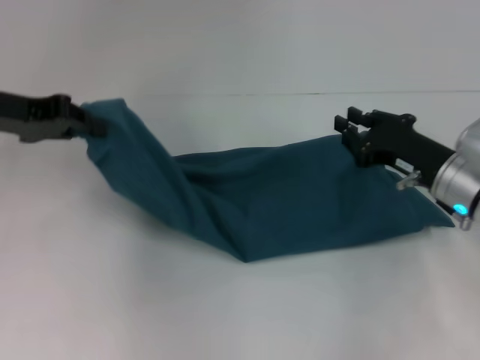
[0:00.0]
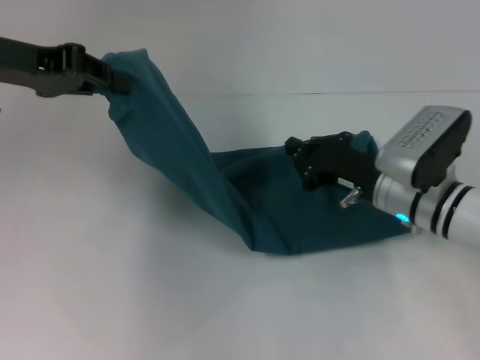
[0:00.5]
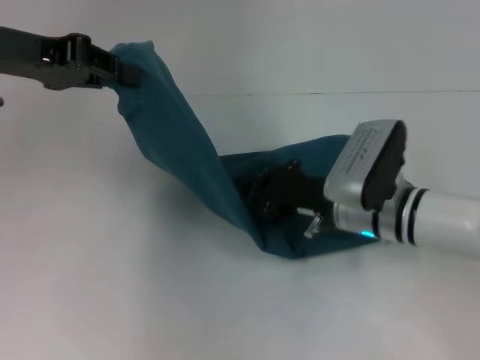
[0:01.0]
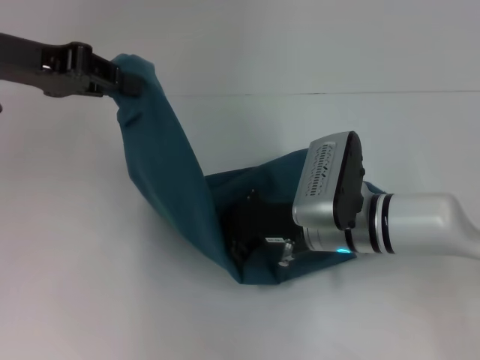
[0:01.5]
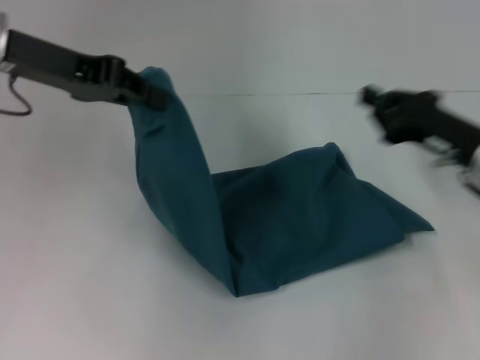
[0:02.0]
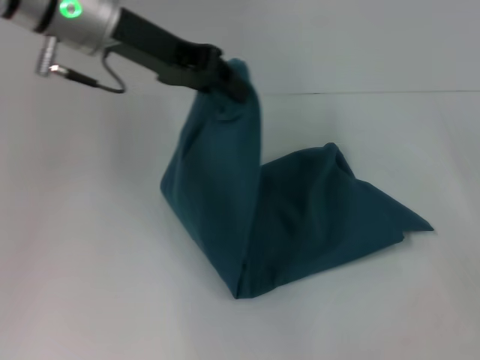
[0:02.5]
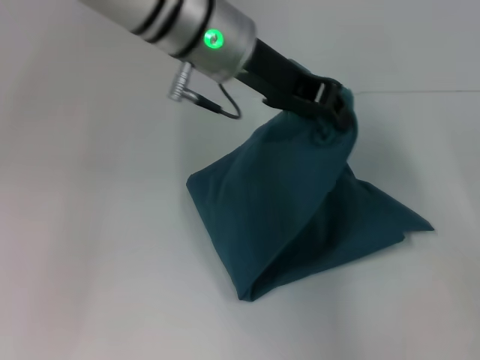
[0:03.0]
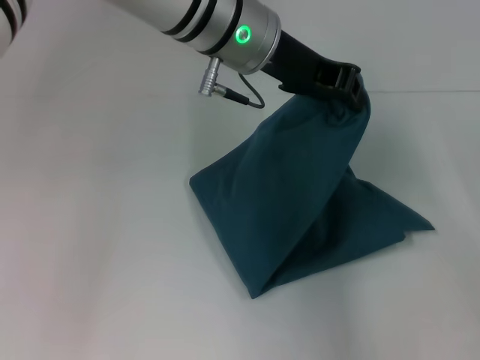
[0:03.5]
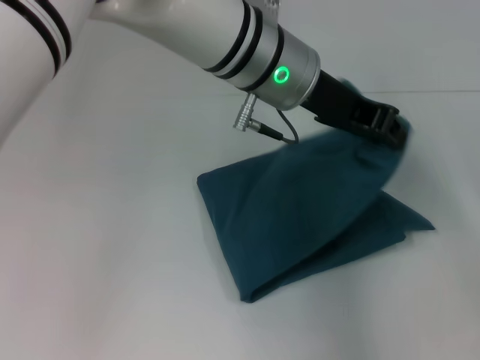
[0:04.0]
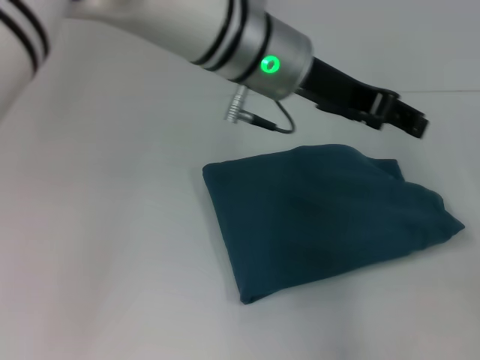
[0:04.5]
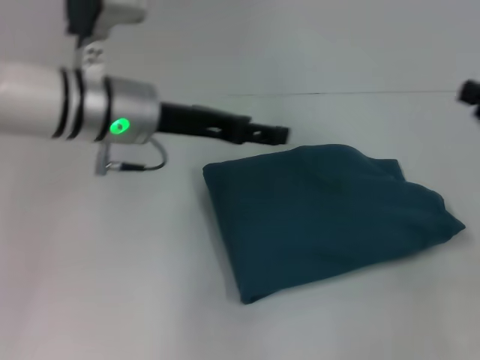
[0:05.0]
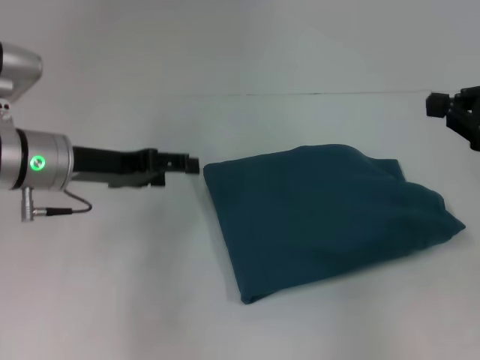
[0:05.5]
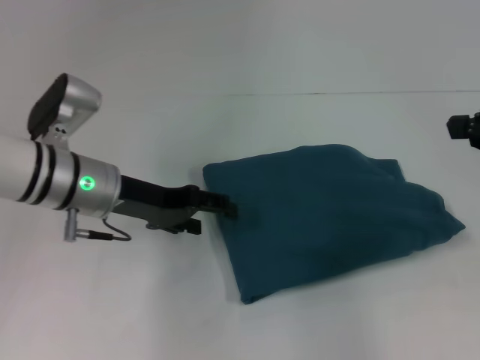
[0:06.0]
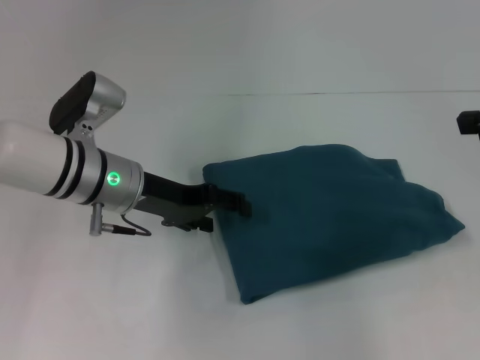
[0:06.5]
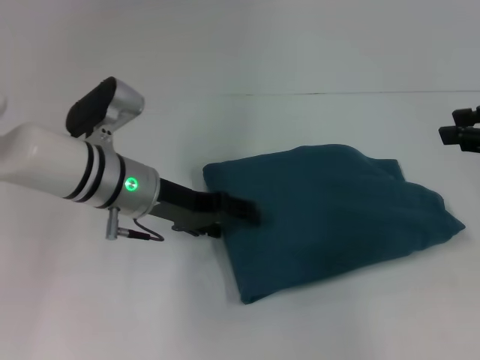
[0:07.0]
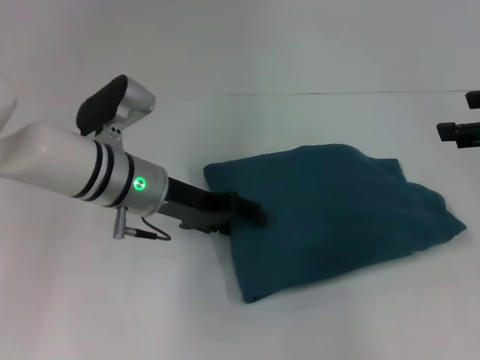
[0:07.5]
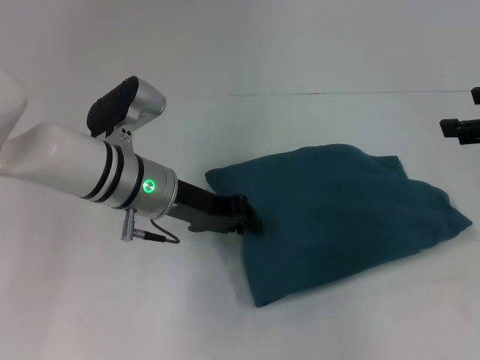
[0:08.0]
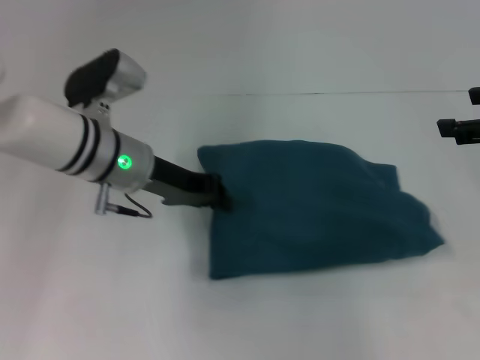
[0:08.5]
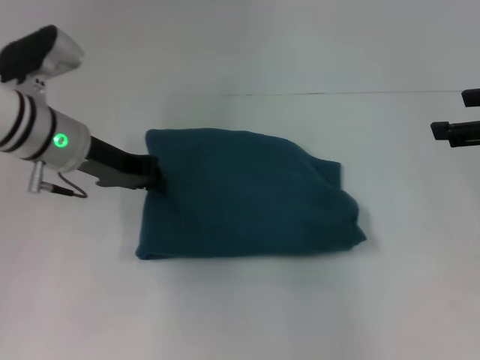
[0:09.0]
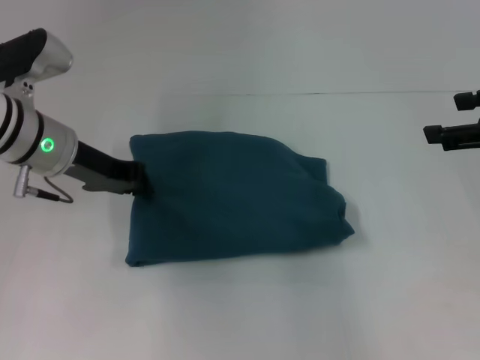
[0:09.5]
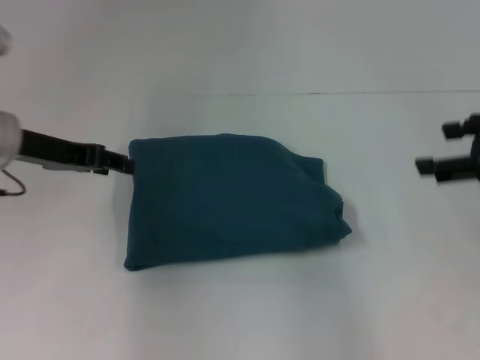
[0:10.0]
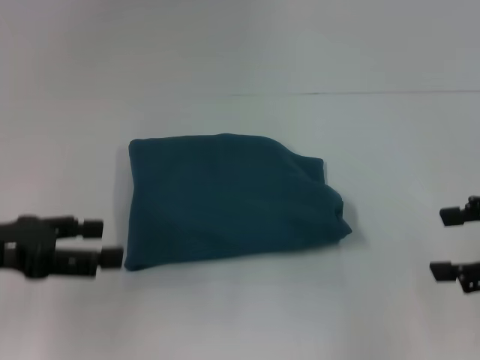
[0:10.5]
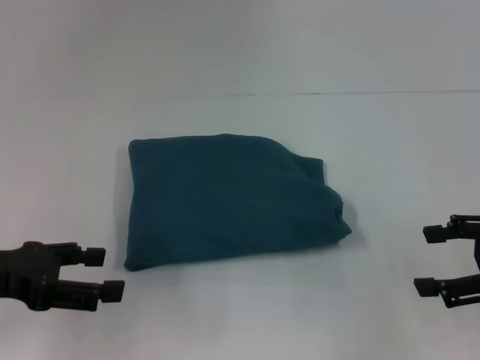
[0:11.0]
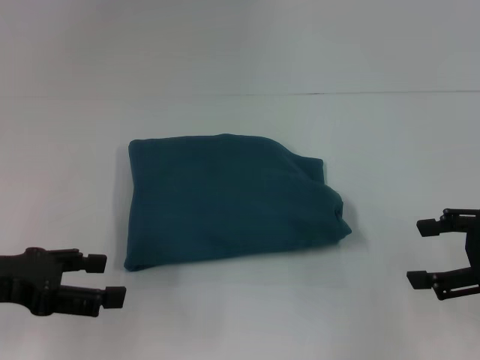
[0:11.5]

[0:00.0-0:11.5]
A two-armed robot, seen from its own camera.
Step, 0:02.0 to 0:04.5: Fold the clothes to the left.
0:00.0 to 0:02.0: The left gripper travels to the right and upward by roughly 10 cm. Meanwhile the right gripper reaches approximately 15 cm to the left, then returns, and closes.
0:02.0 to 0:04.0: The right gripper moves to the right and backward, some 15 cm; the left gripper moves to the right, about 25 cm.
0:04.0 to 0:06.0: The right gripper is displaced to the left and upward by some 15 cm, while the left gripper moves to the left and downward, roughly 20 cm, and opens.
0:06.0 to 0:07.5: The right gripper opens.
0:07.5 to 0:09.5: The left gripper shifts roughly 10 cm to the left, and closes up.
0:09.5 to 0:11.5: The right gripper shifts roughly 10 cm downward and backward. The left gripper moves backward and to the left, approximately 15 cm, and opens.

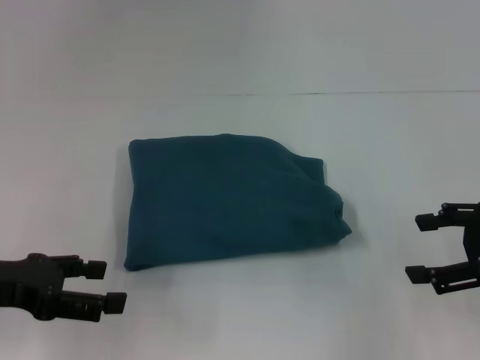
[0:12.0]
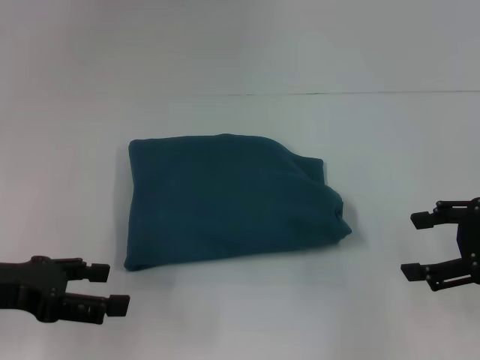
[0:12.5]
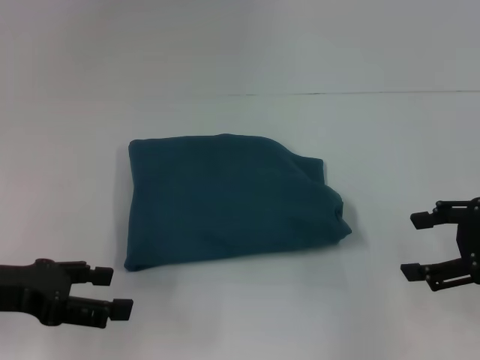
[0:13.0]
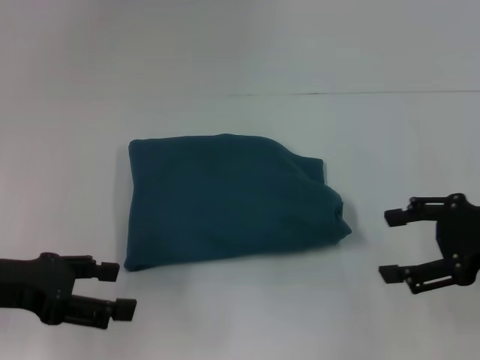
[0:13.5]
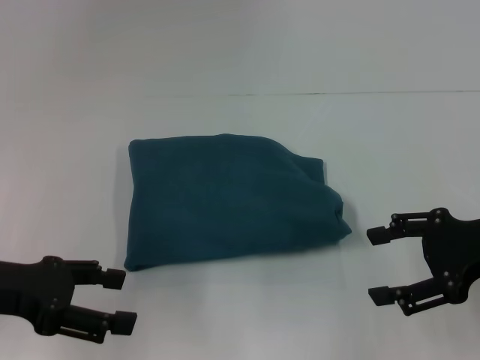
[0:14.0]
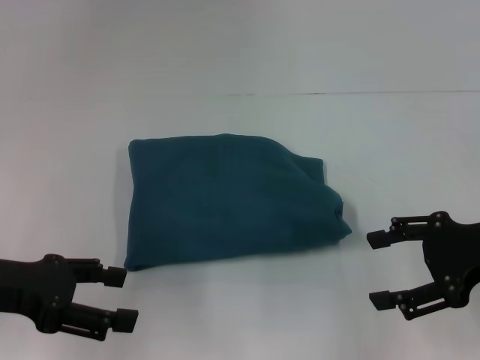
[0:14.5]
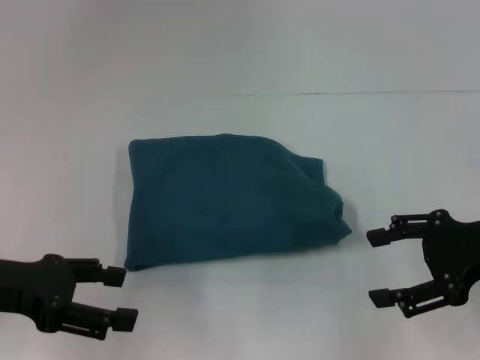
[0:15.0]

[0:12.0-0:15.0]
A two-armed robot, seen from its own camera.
0:12.0 to 0:15.0: There are only small adjustments of the grippers.

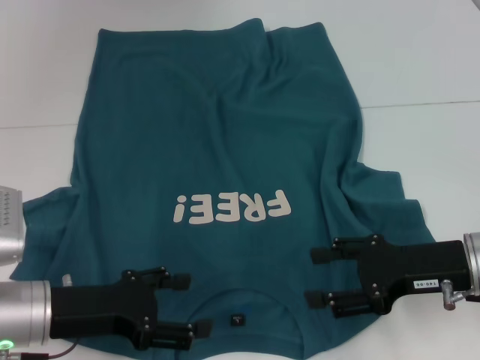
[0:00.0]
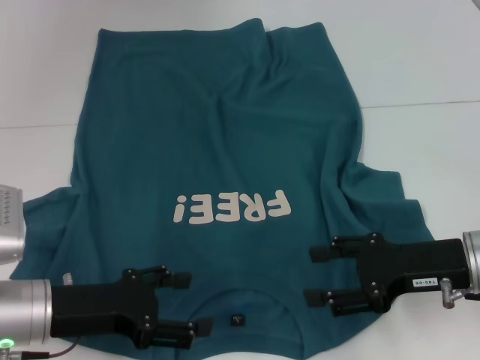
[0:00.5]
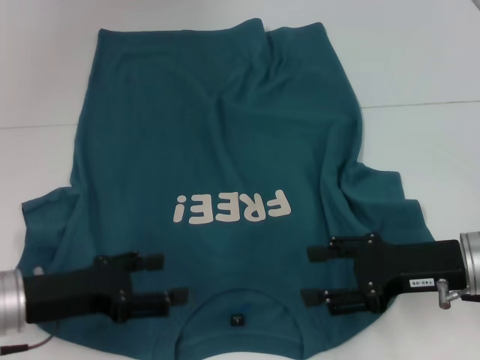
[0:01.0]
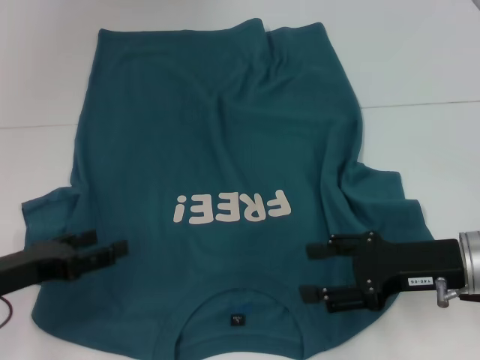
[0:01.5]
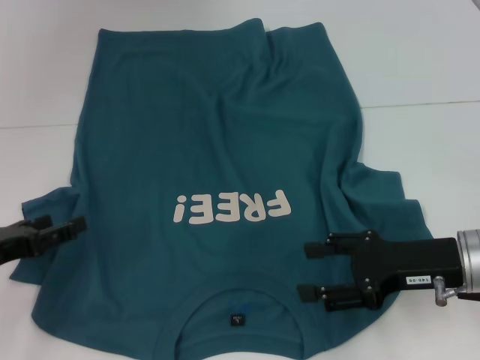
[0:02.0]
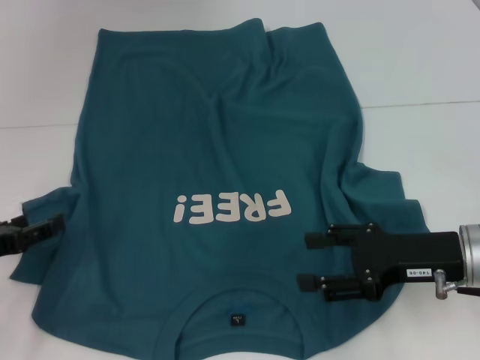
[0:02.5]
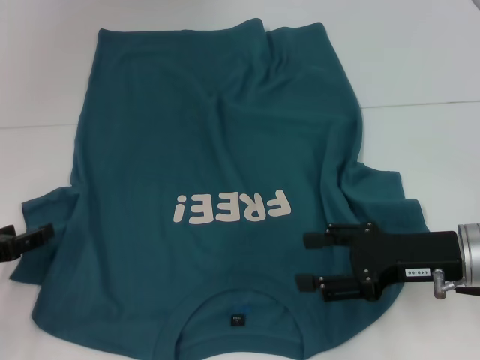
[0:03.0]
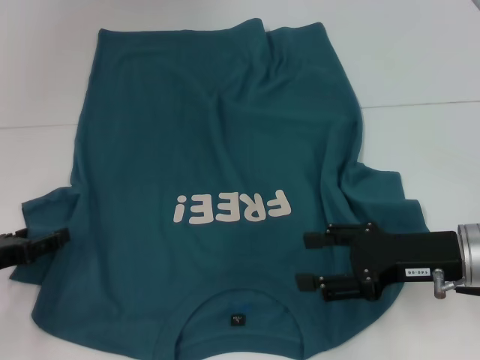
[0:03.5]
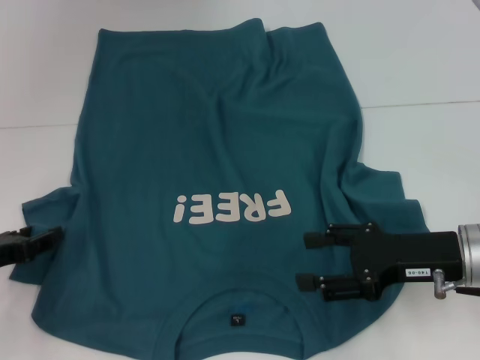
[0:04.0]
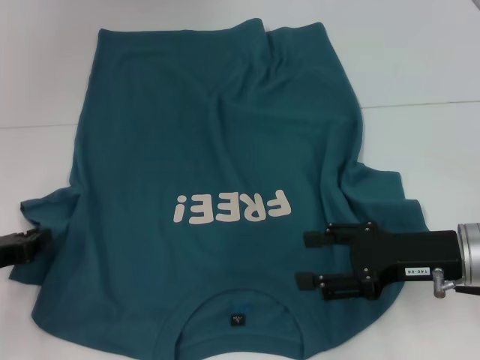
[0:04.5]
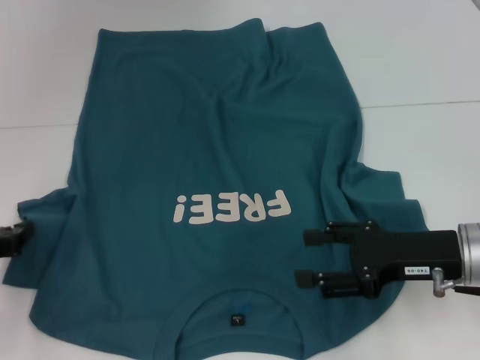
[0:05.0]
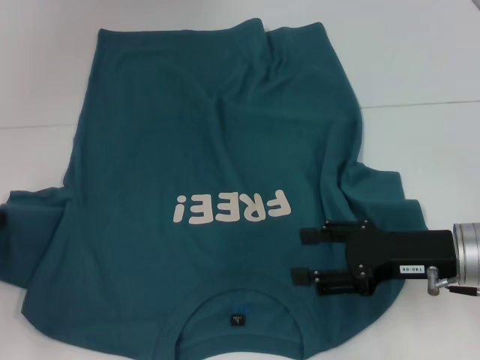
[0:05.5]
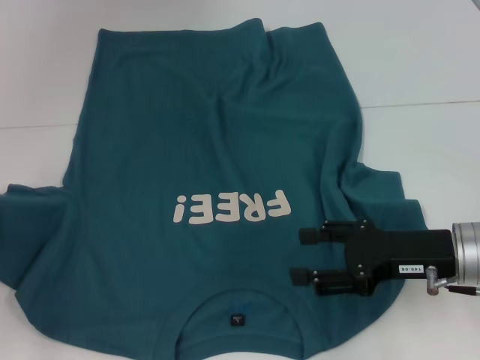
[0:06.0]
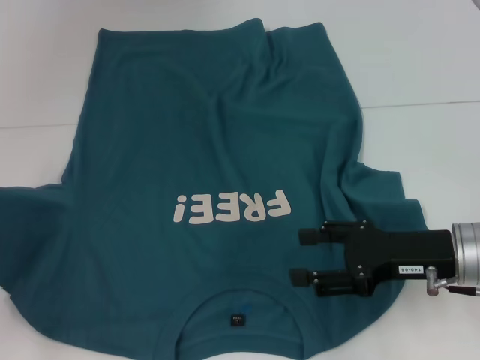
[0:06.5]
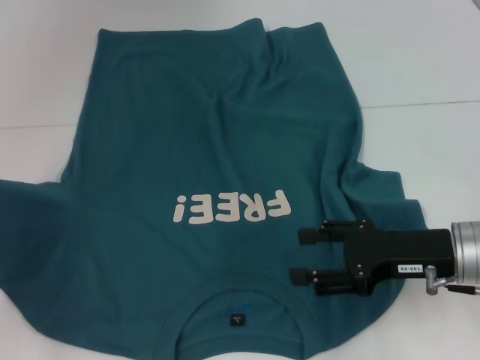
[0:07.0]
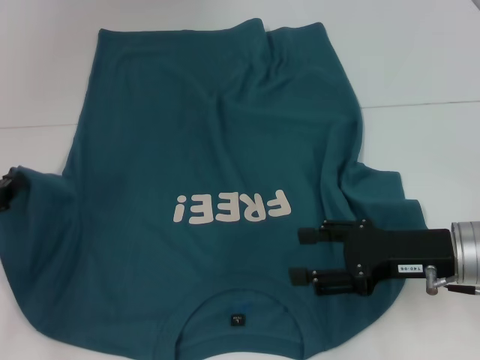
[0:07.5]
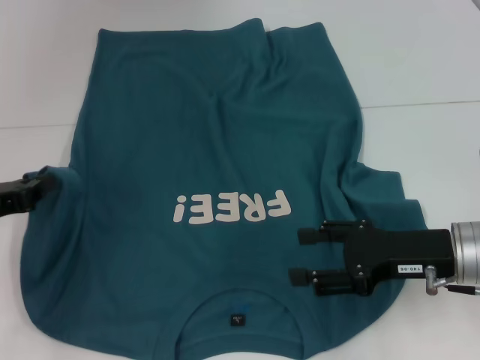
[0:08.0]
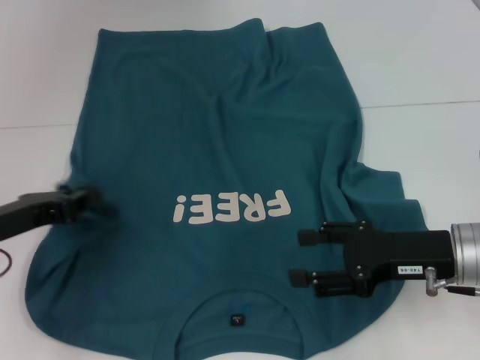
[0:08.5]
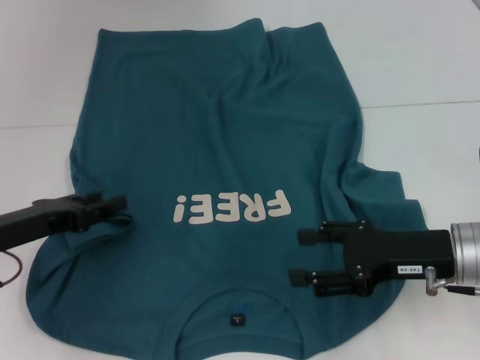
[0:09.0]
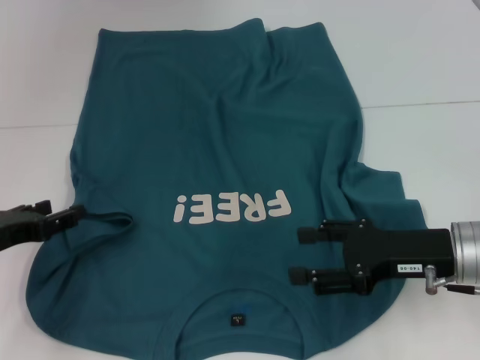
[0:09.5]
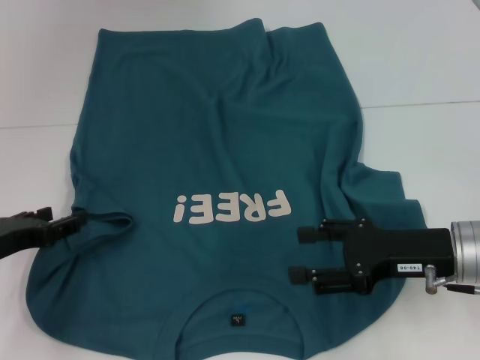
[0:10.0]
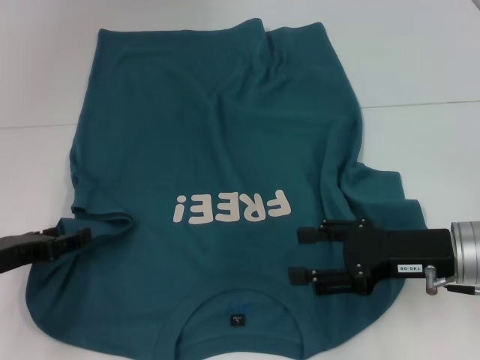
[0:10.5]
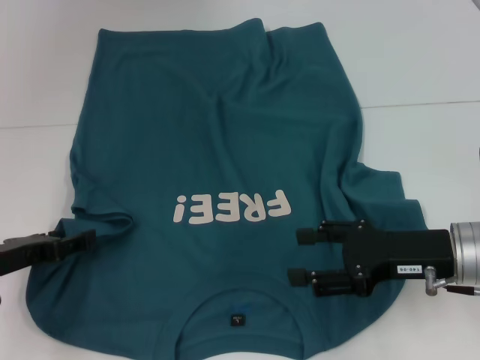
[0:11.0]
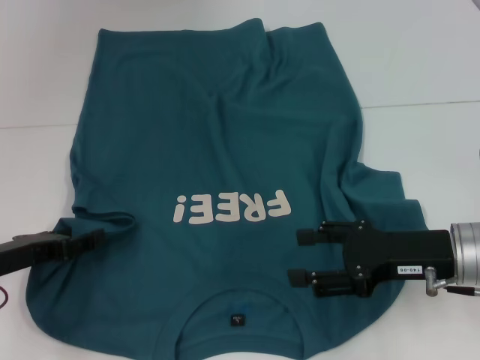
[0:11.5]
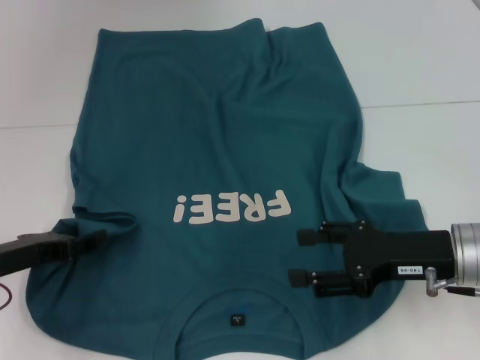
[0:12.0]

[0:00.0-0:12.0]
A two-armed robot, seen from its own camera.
0:00.0 to 0:02.0: The left gripper travels to the left by approximately 10 cm.
0:02.0 to 0:04.0: The grippers make only small movements.
0:04.0 to 0:06.0: The left gripper closes up.
0:06.0 to 0:08.0: The grippers move only a little.
0:08.0 to 0:10.0: The left gripper opens up.
0:10.0 to 0:12.0: There are only small adjustments of the grippers.
